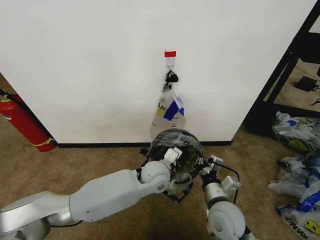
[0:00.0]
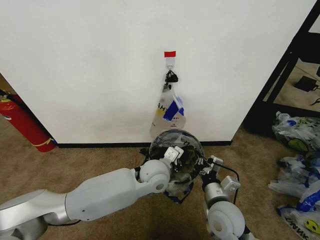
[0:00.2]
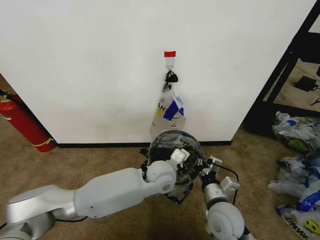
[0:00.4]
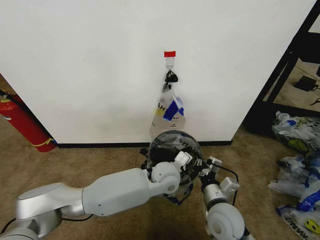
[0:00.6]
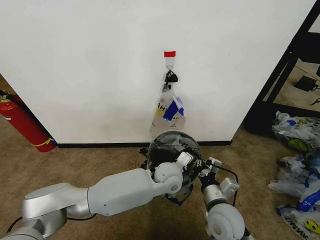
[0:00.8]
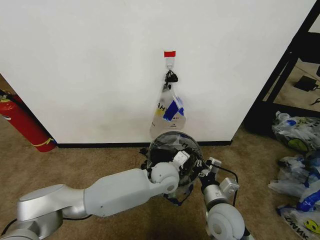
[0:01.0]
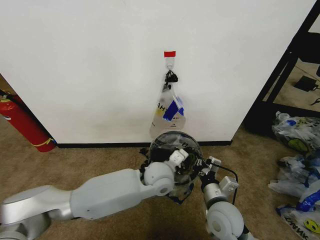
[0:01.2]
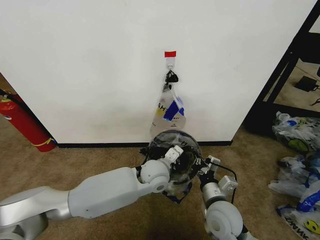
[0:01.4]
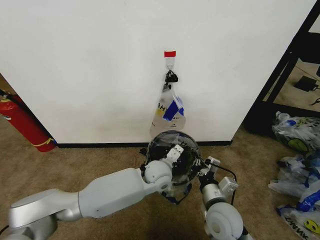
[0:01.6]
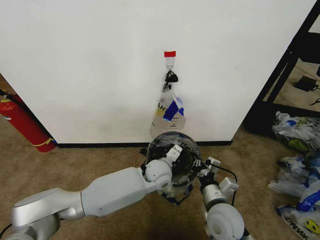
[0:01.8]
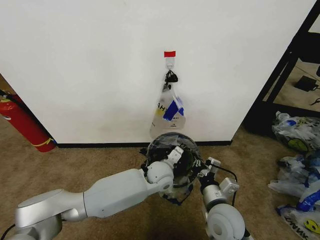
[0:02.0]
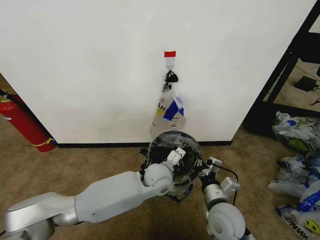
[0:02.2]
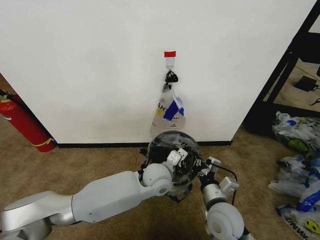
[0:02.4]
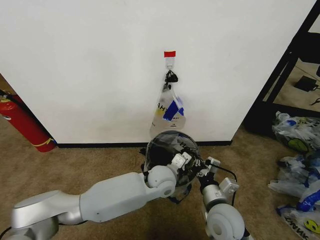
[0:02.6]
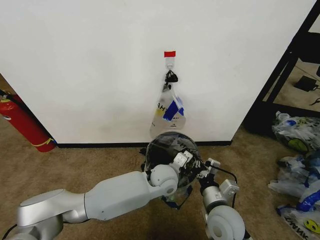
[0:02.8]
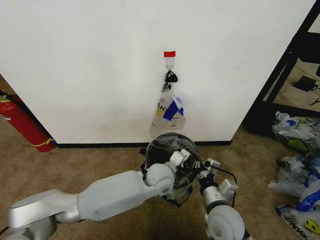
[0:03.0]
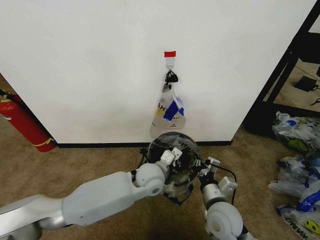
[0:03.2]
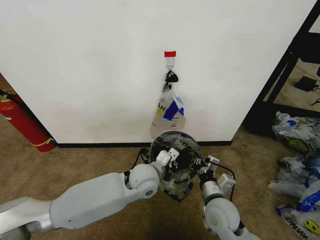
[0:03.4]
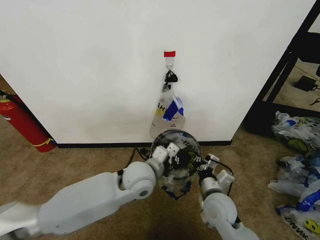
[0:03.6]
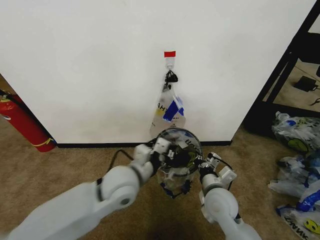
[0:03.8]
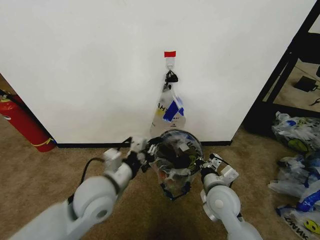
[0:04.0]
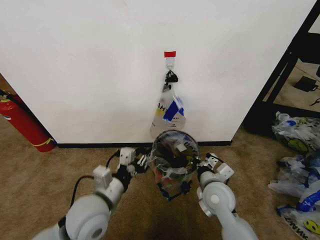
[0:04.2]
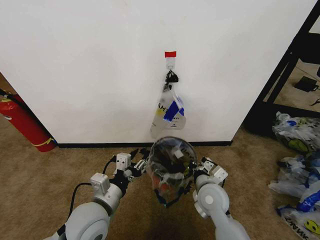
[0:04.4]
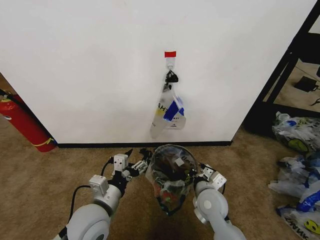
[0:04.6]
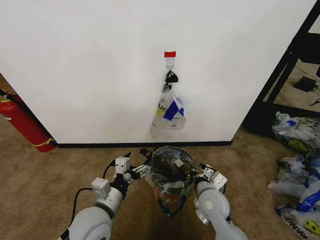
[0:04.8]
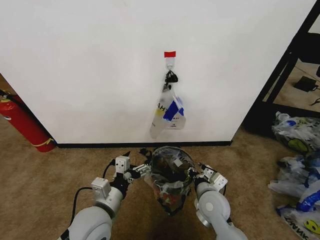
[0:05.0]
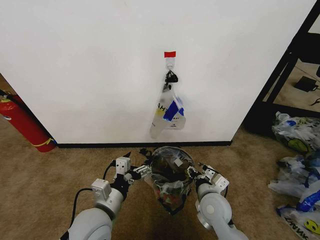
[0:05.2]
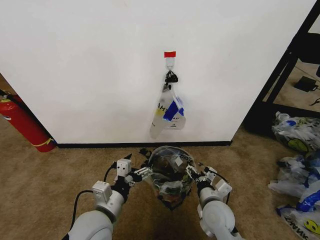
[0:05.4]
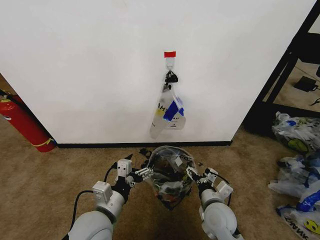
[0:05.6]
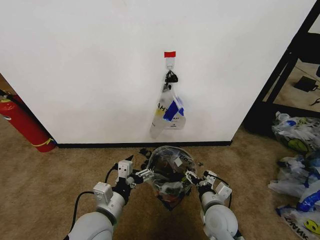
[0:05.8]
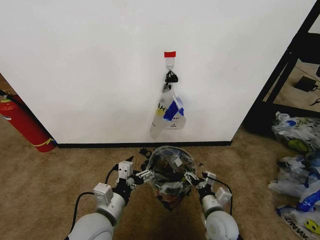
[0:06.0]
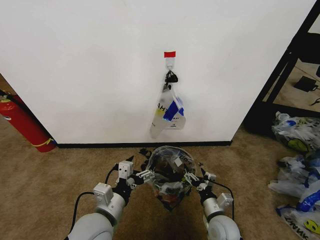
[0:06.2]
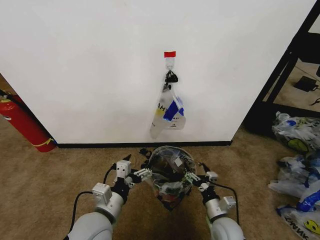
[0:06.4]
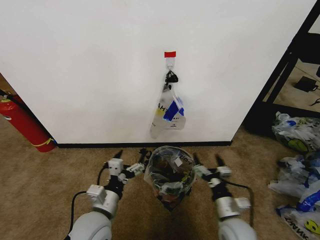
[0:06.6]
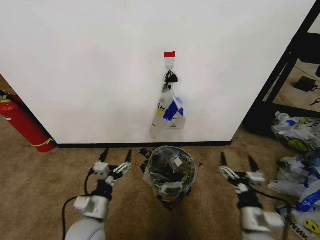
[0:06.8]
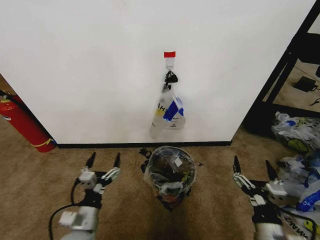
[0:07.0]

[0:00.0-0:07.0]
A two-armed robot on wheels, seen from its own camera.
Task of the whole recording: Pick up the garbage bag from the wall and place it over the trash bin.
0:00.0 to 0:02.8: There are only small adjustments of the grippers.
0:02.8 to 0:04.2: The right gripper heads forward, covering roughly 5 cm. The left gripper shifts about 25 cm to the left, backward and upward.
0:04.2 to 0:05.6: The left gripper opens up, while the right gripper heads downward, covering some 5 cm, and opens its fingers.
0:05.6 to 0:07.0: The right gripper travels backward and to the right by roughly 15 cm, while the left gripper moves downward and to the left, roughly 10 cm.
